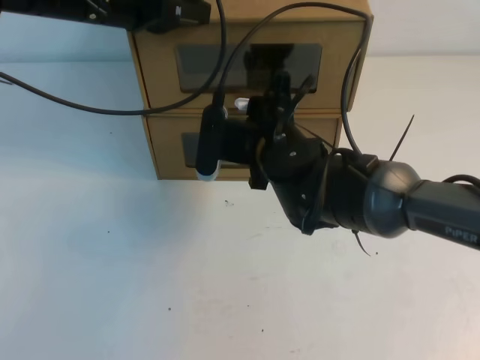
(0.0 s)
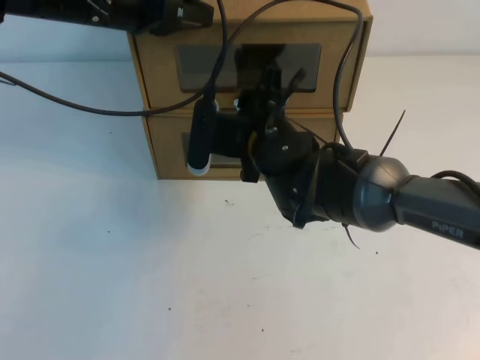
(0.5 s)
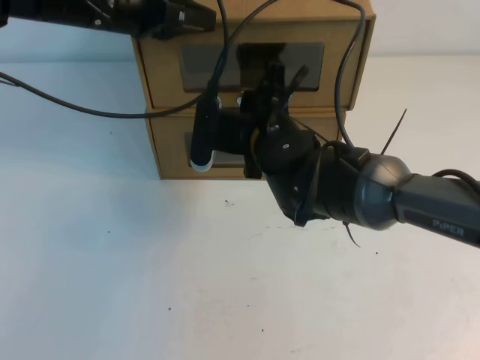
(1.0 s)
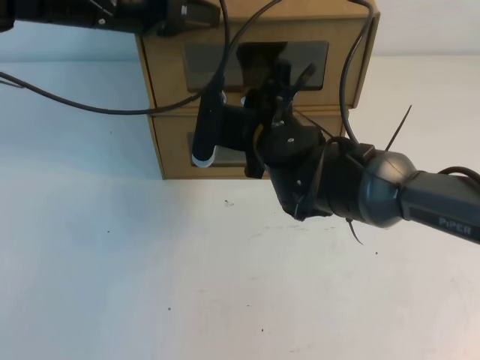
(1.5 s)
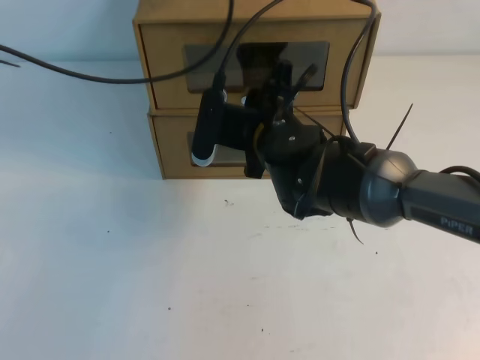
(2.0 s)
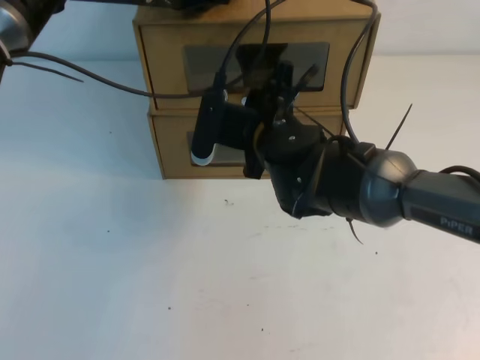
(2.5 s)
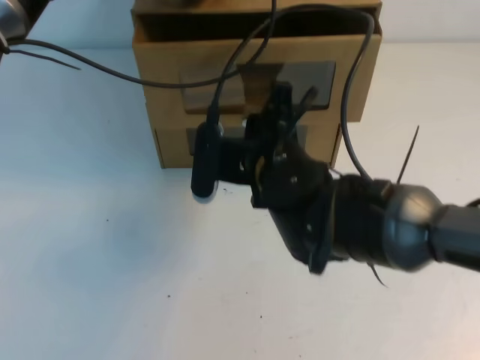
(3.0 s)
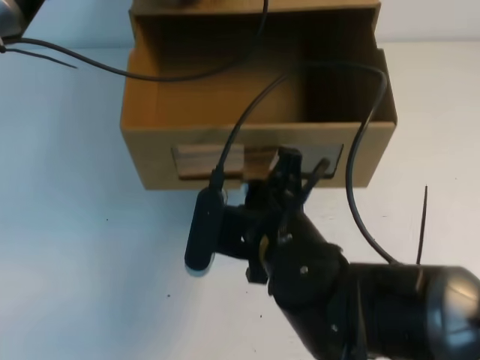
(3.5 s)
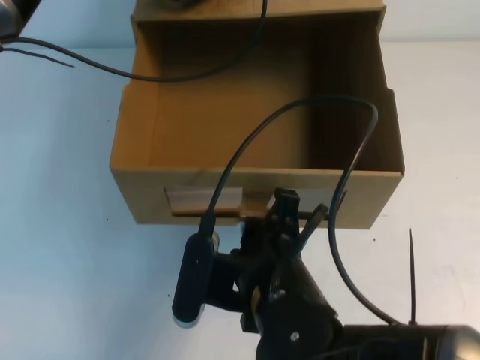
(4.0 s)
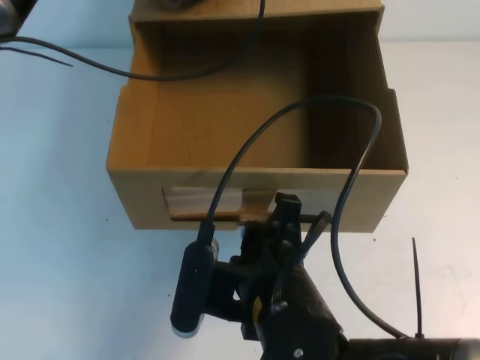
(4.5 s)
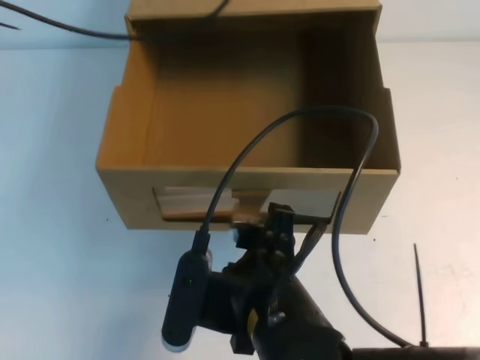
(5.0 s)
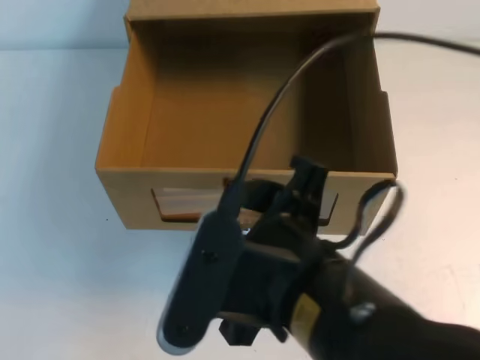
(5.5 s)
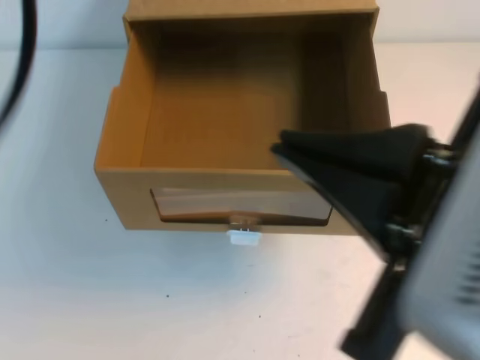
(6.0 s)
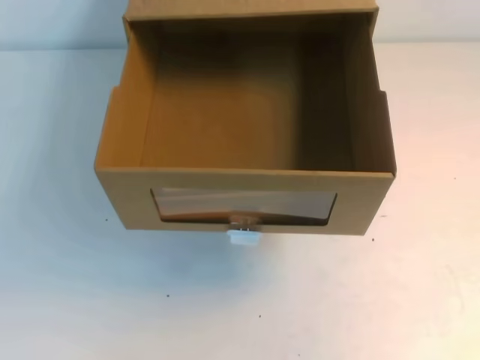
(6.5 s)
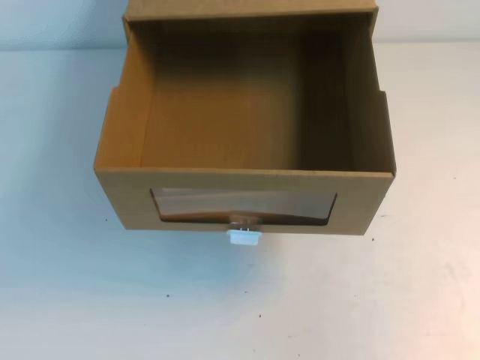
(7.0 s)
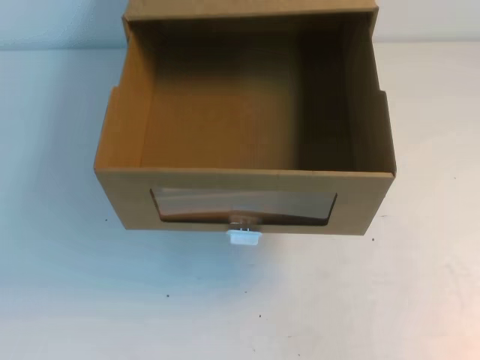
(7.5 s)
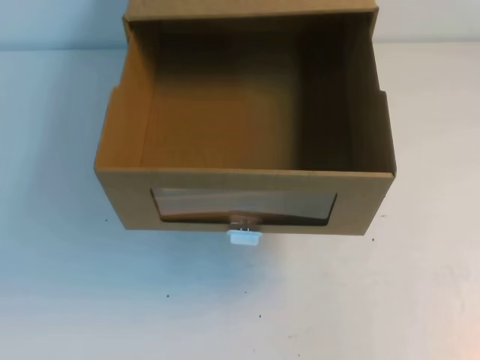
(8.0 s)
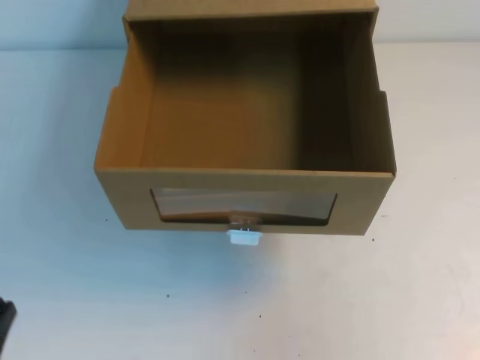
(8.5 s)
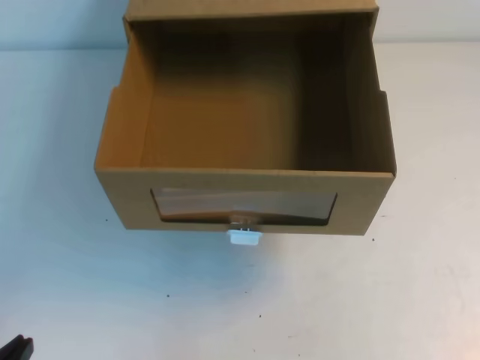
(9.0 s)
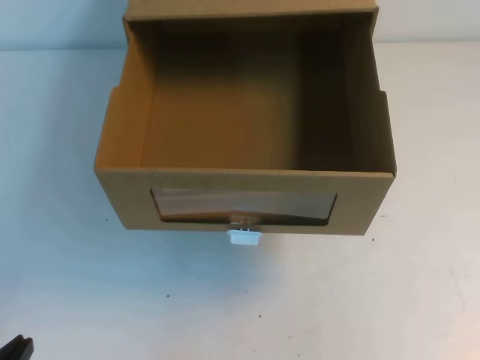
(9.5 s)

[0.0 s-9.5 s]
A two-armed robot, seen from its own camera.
Task of the whole recording: open the shoebox on the table.
0.0 to 2.0 s: The right gripper closes its fingers.
2.0 to 4.0 s: The right gripper goes approximately 20 cm backward.
4.0 to 5.5 s: The right gripper is displaced upward and backward by approximately 10 cm, and opens its fingers; the left gripper shifts roughly 30 cm upward, backward and to the left.
5.5 to 7.5 s: The left gripper moves backward and downward, some 35 cm; the right gripper is displaced to the right by some 30 cm, and closes.

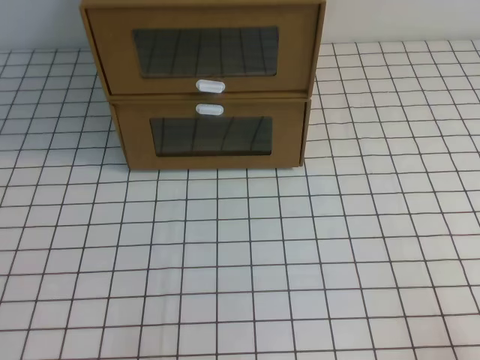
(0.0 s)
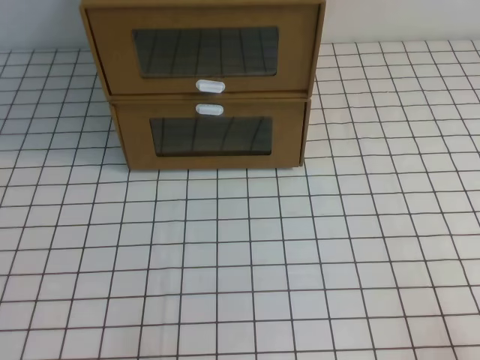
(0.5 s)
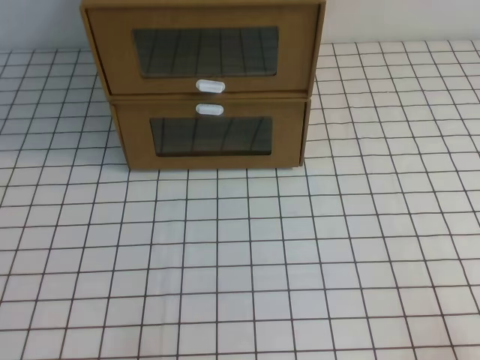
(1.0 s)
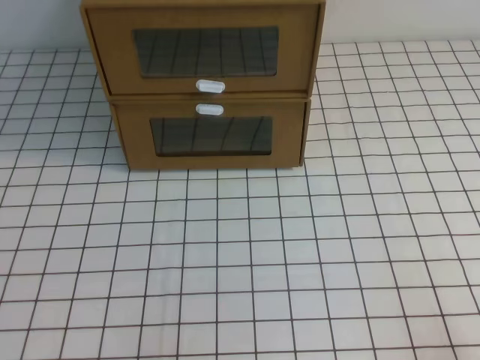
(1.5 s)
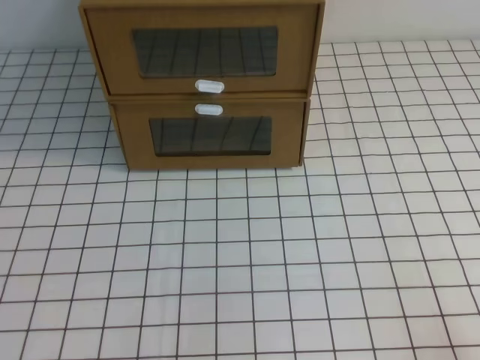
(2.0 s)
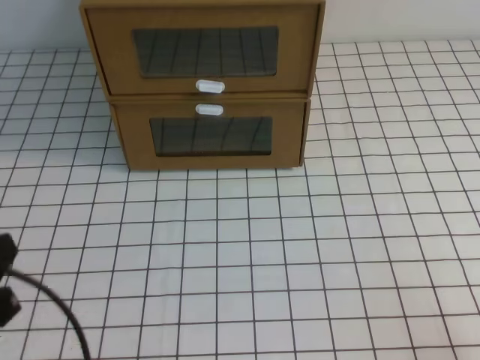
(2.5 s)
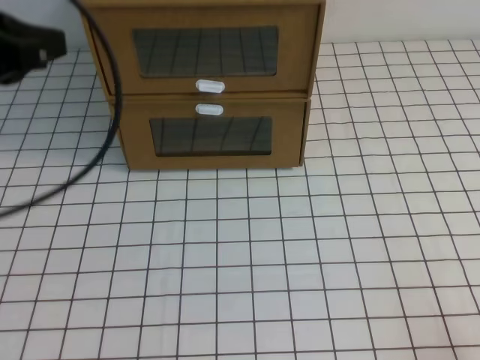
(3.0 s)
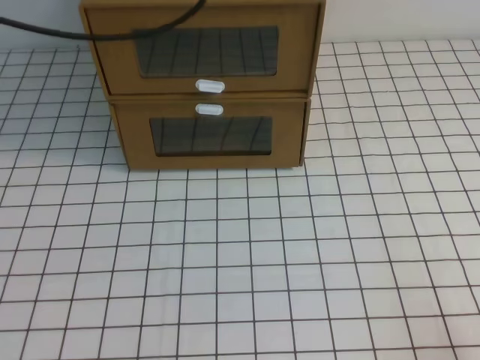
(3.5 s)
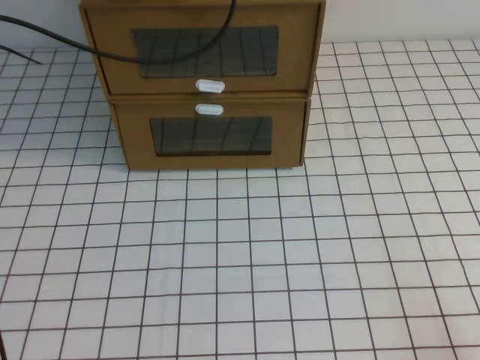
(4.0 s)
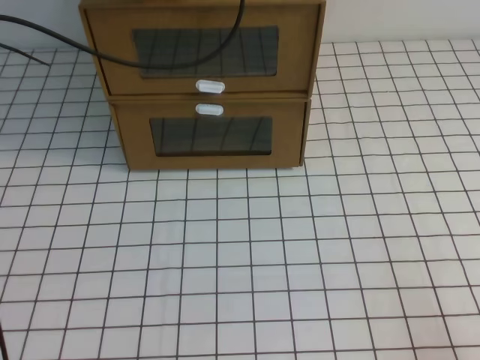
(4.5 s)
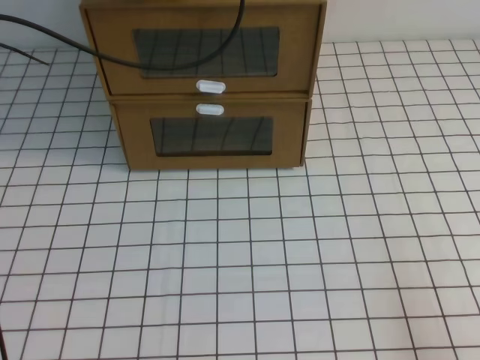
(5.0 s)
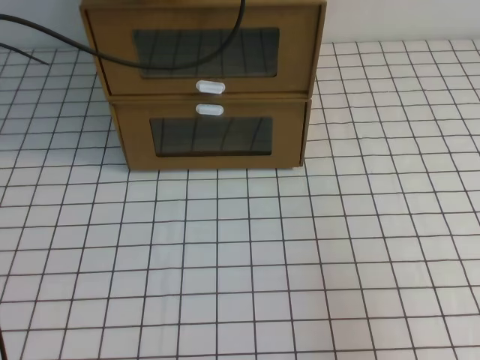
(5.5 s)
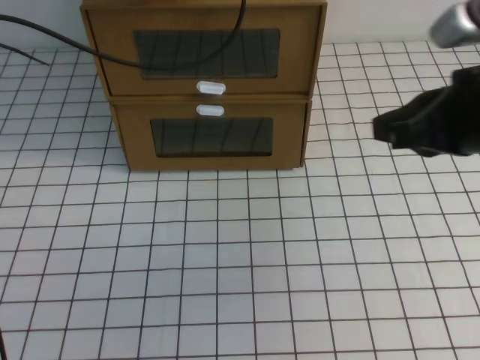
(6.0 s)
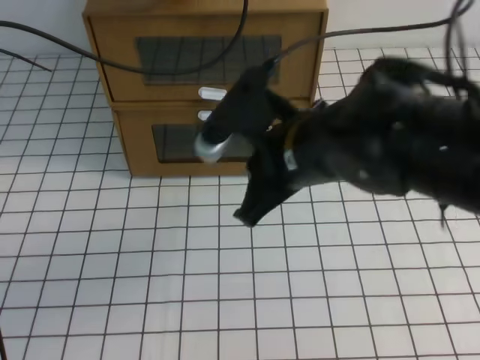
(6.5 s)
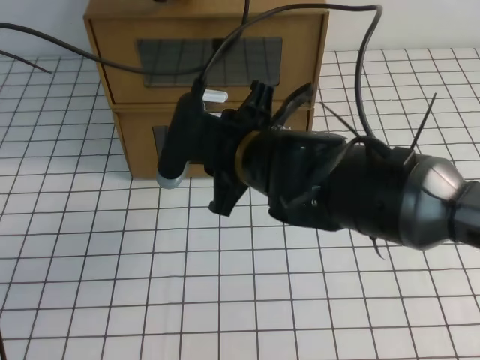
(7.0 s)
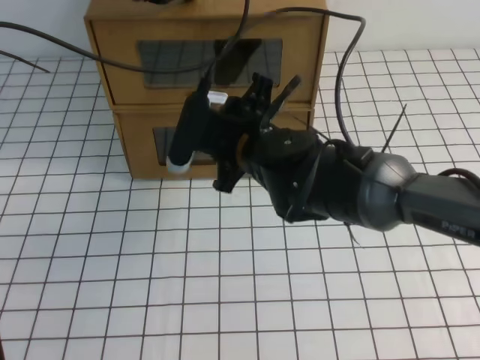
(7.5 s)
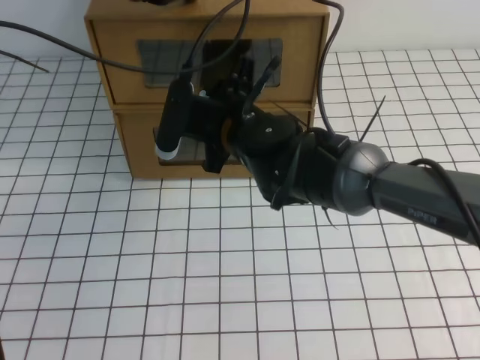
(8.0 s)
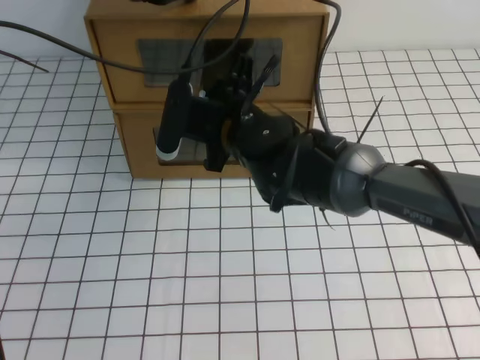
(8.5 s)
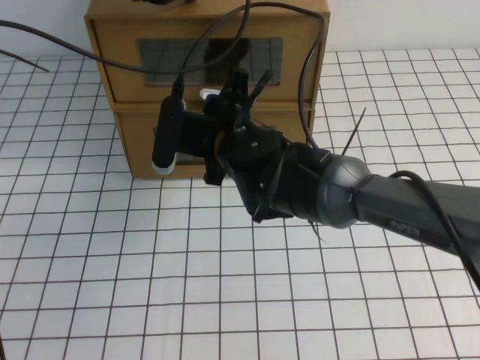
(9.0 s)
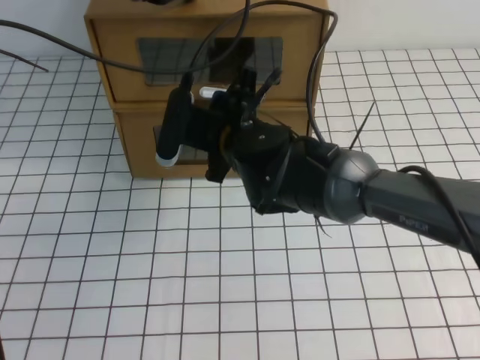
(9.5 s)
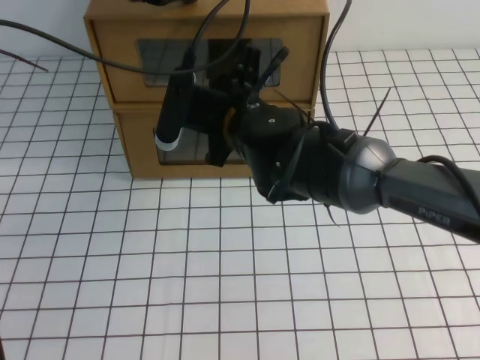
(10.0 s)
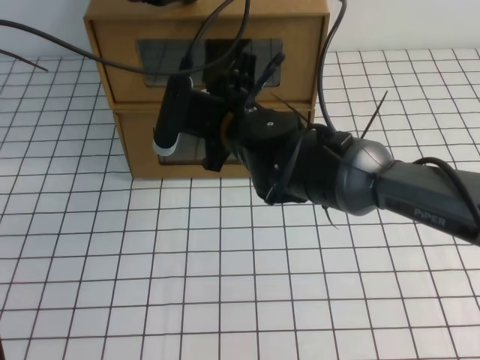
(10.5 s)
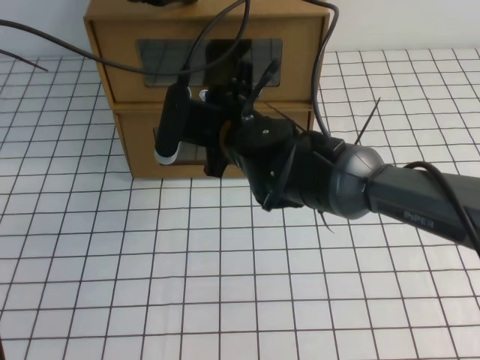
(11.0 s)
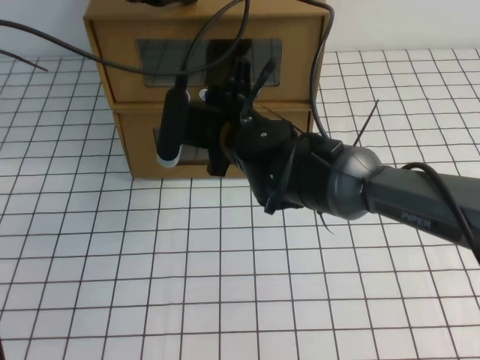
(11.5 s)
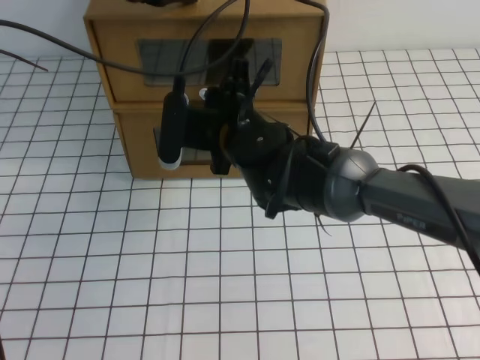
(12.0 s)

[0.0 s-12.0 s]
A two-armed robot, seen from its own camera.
Task of the whole recording: open the shoebox on the white tablecloth.
2.0 to 4.0 s: The left gripper heads forward and upward, covering approximately 40 cm.
4.0 to 6.0 s: The right gripper travels forward, upward and to the left by some 25 cm.
6.0 to 8.0 s: The right gripper shifts approximately 25 cm to the left and forward, and opens up.
8.0 to 12.0 s: The grippers stay close to where they were, moving slightly.

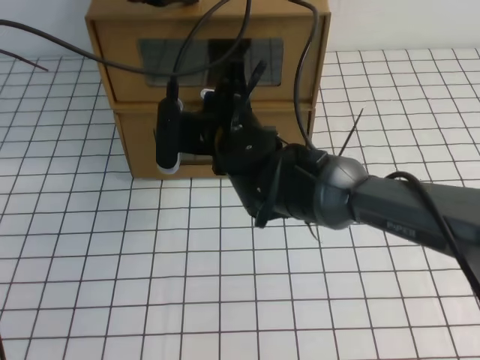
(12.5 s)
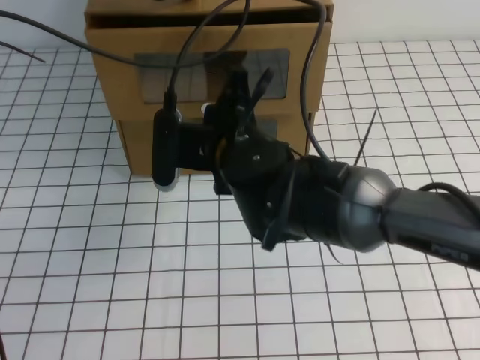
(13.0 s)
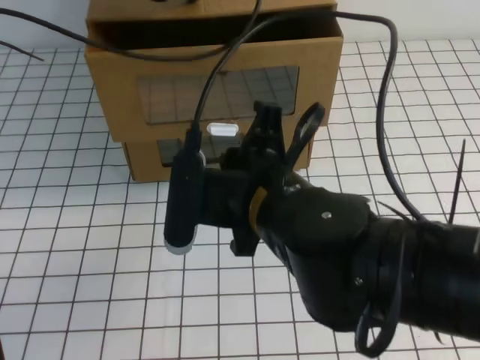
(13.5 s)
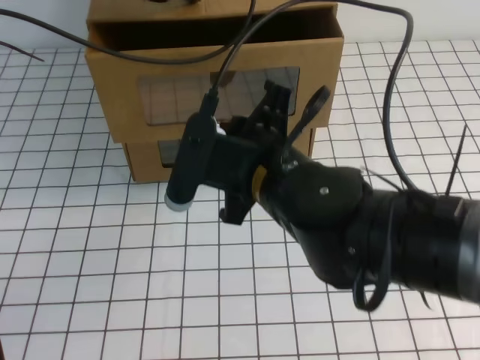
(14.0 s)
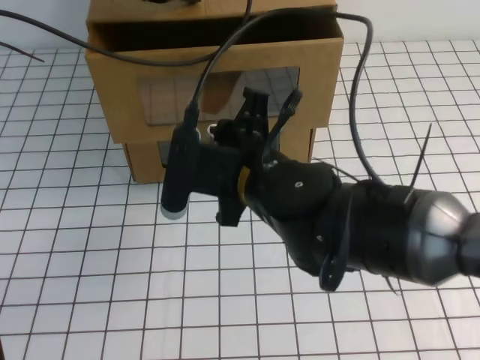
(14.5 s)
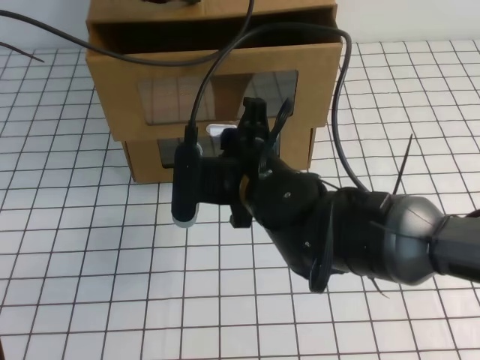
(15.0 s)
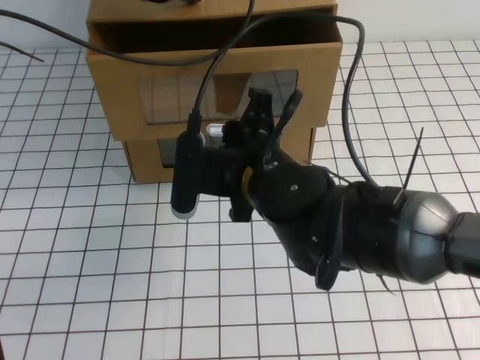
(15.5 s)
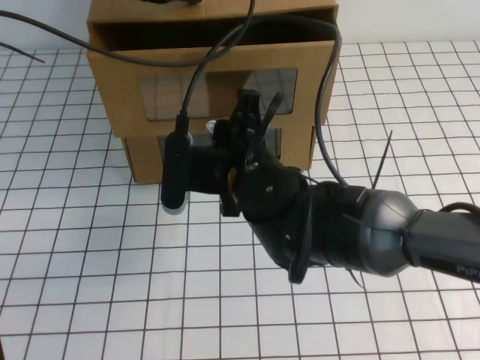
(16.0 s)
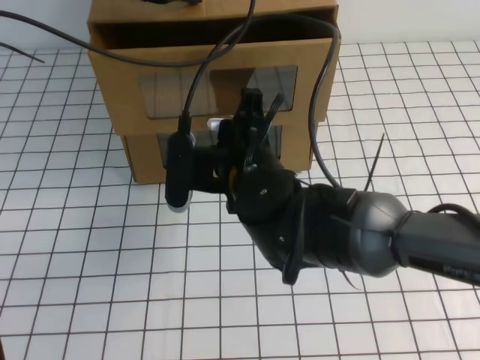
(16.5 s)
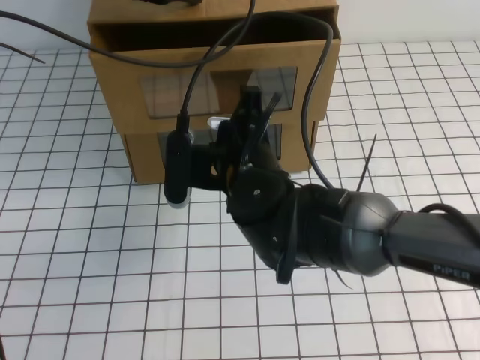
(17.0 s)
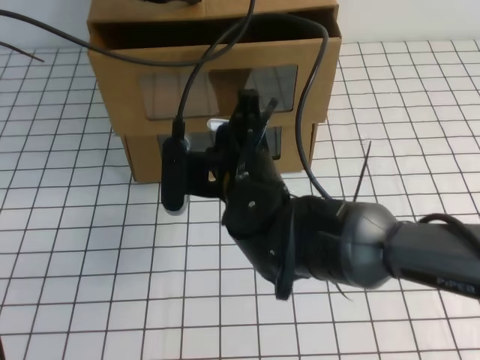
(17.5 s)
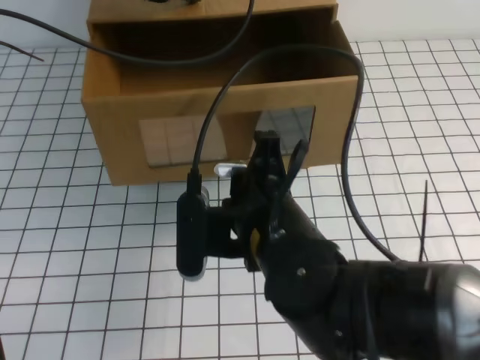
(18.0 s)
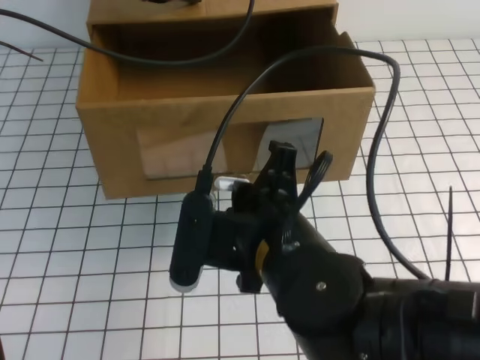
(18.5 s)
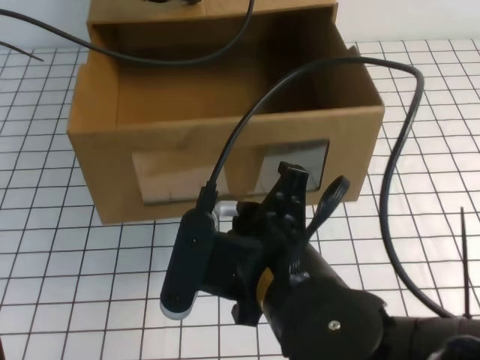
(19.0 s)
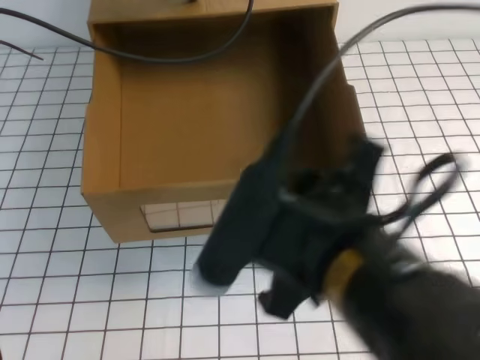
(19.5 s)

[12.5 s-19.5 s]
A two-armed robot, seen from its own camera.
Task of the whole recording: open the shoebox on the white tablecloth.
12.5 to 14.5 s: The right gripper heads backward, covering roughly 10 cm, and opens up.
14.5 to 16.0 s: The grippers move only a little.
16.0 to 17.5 s: The right gripper closes.
17.5 to 19.5 s: The right gripper is displaced backward, upward and to the right by approximately 20 cm, and opens up.
